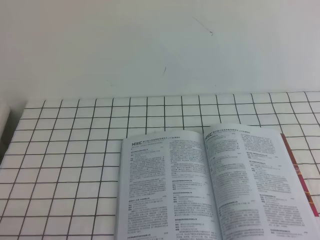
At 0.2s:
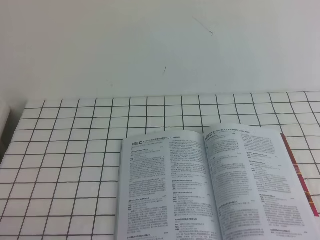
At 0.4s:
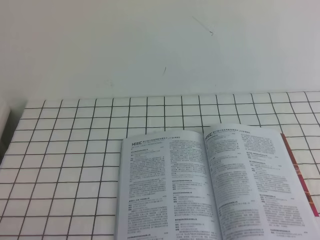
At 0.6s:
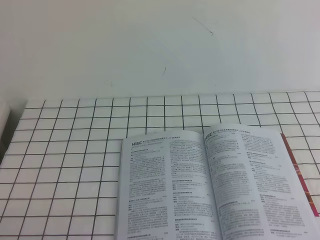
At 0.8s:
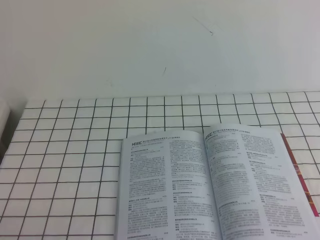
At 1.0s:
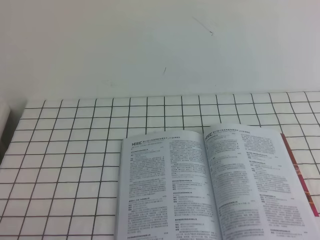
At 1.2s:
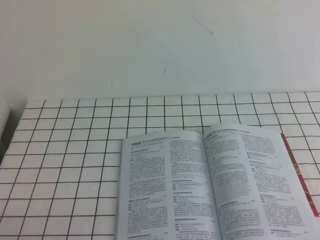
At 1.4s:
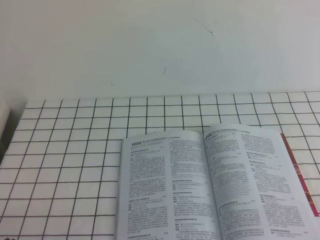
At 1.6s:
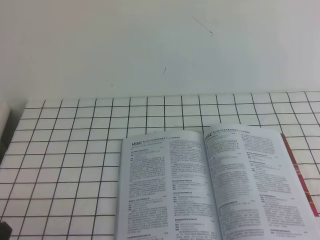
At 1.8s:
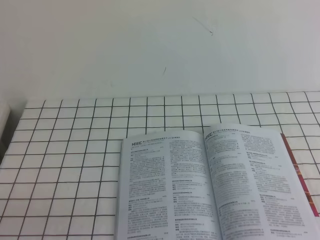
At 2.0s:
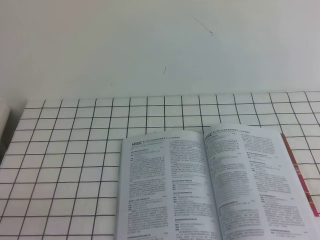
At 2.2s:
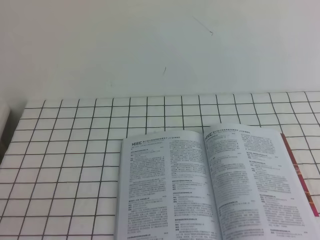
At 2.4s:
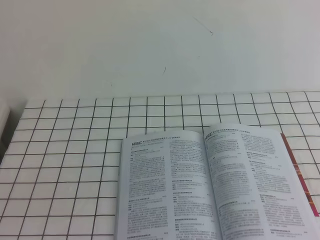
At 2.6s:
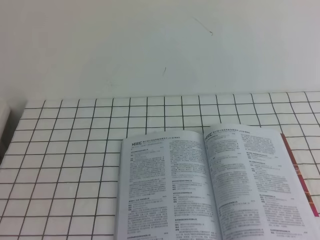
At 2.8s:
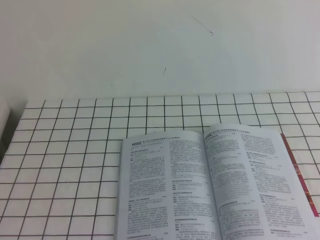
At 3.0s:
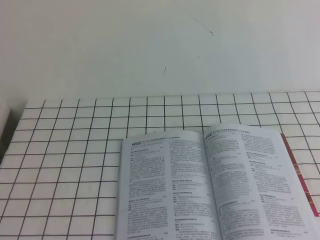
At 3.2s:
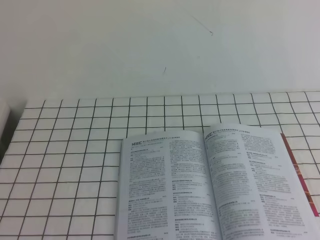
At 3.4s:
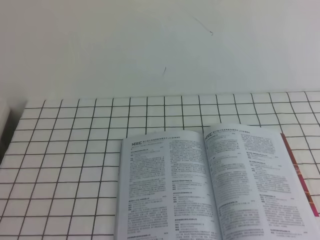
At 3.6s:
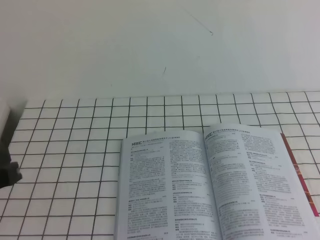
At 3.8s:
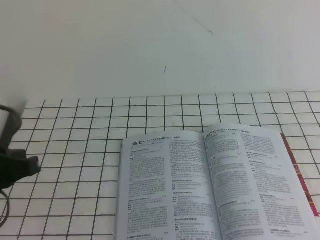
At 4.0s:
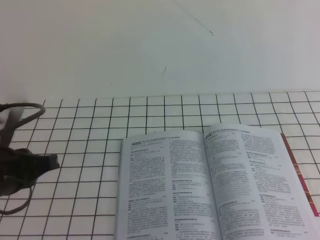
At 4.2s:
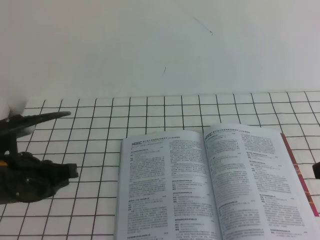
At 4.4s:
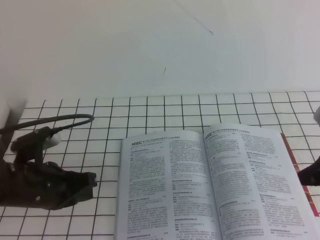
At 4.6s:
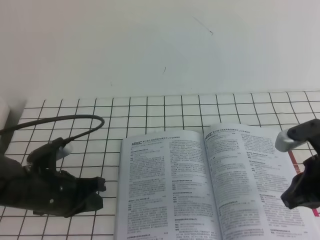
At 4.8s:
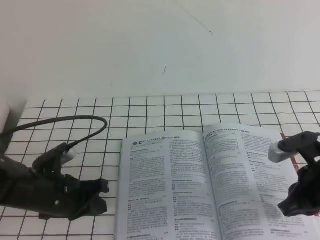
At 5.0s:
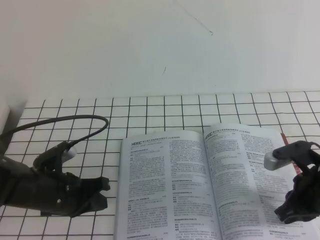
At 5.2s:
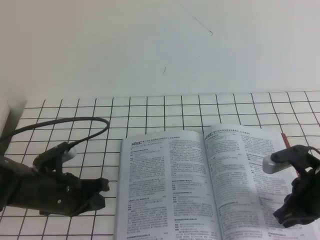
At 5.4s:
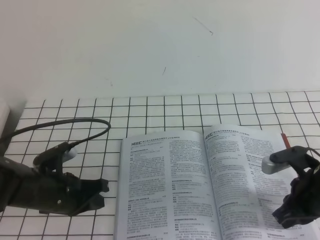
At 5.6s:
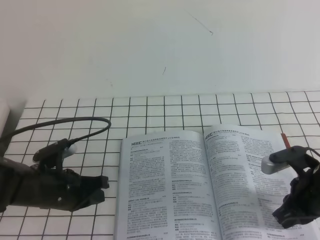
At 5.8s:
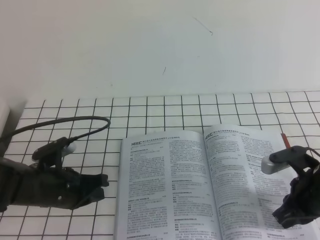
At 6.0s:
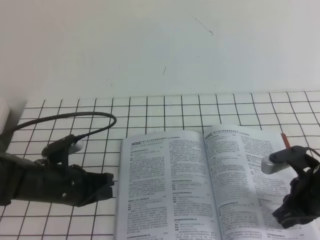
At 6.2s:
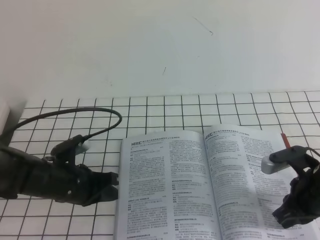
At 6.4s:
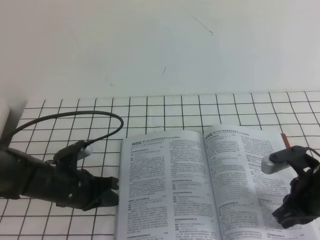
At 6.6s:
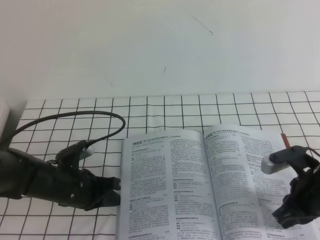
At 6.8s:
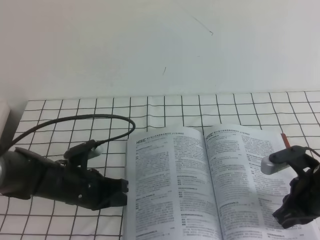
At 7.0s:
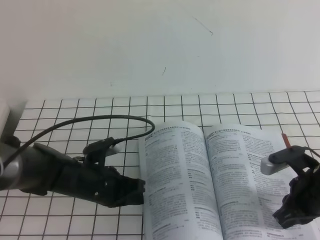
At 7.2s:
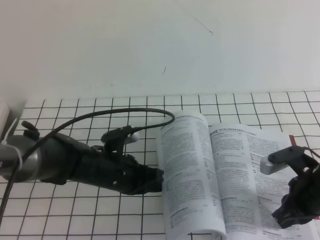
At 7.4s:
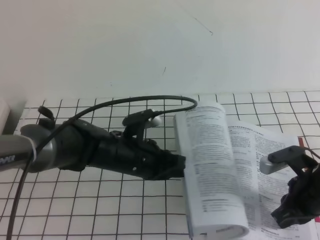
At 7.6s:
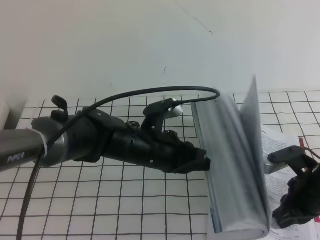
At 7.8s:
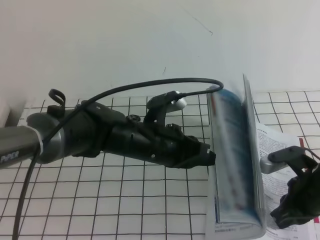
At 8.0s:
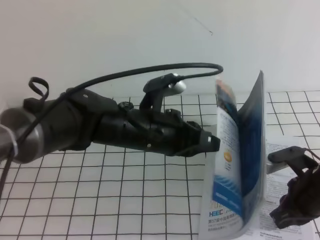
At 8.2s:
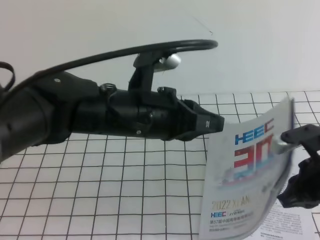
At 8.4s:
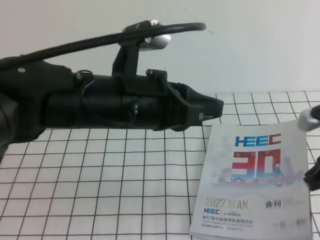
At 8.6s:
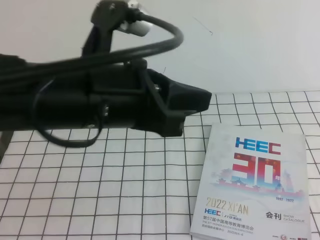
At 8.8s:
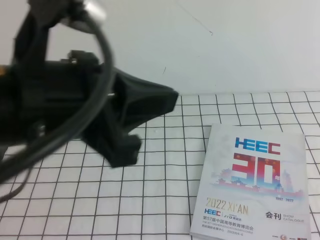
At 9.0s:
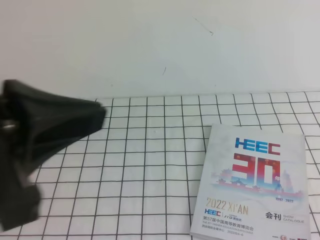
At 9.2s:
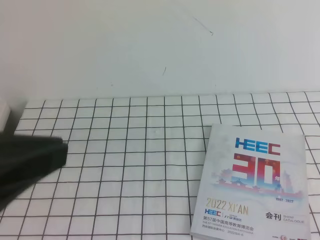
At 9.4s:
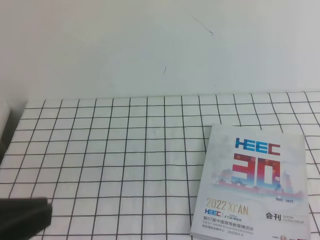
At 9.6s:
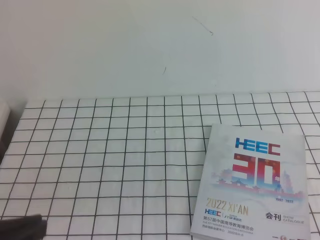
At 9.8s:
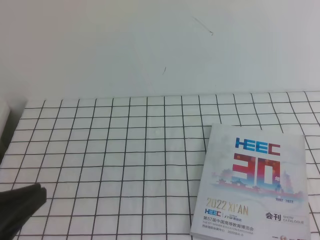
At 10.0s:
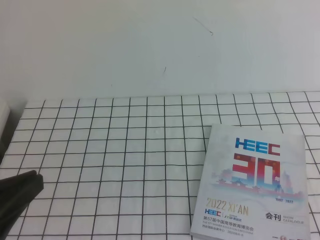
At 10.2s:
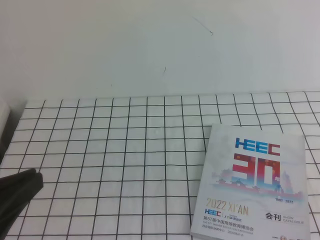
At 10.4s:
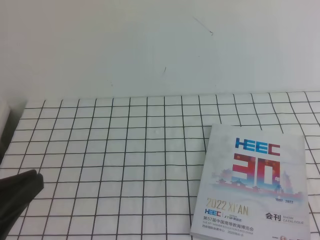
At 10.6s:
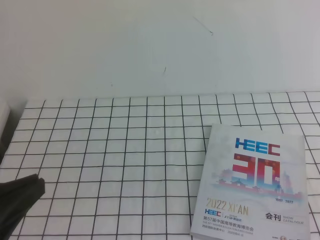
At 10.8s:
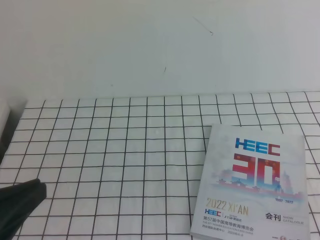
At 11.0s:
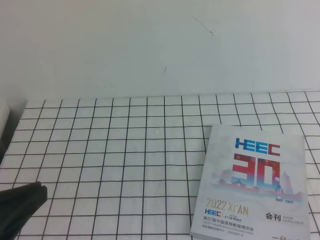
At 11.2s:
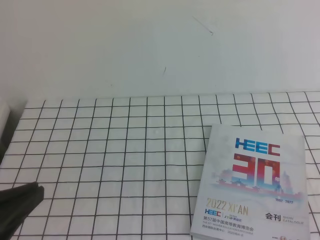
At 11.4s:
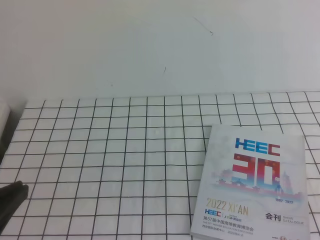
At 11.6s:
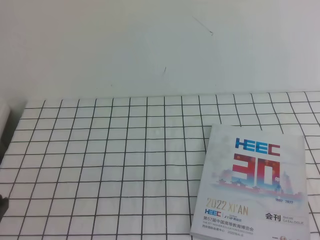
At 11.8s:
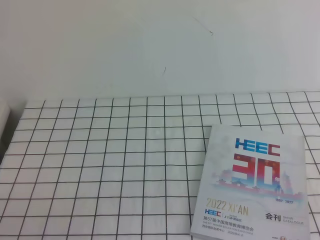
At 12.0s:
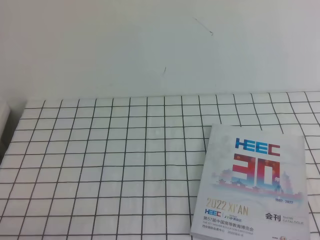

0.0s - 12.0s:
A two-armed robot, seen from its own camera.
Task of the whole recording: on the white tablecloth, hold the book with one hand and close it with the other.
3.0s - 4.4s: The left gripper shifts roughly 25 cm forward and downward, while the right gripper shifts some 30 cm downward and forward.
4.4s - 6.0s: The right gripper goes about 10 cm downward. The left gripper heads downward, covering about 5 cm.
6.0s - 7.6s: The left gripper goes some 15 cm to the right.
7.6s - 9.0s: The left gripper moves upward, backward and to the left, about 35 cm. The right gripper heads upward and backward, covering some 35 cm.
9.0s - 10.4s: The right gripper heads downward, covering roughly 15 cm. The left gripper heads downward and to the left, covering approximately 10 cm.
10.4s - 12.0s: The left gripper is displaced downward by some 15 cm.

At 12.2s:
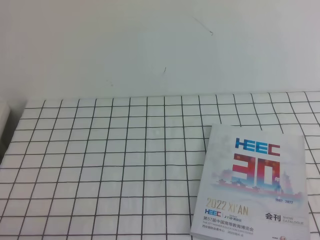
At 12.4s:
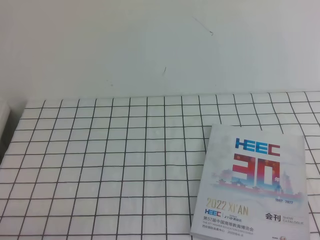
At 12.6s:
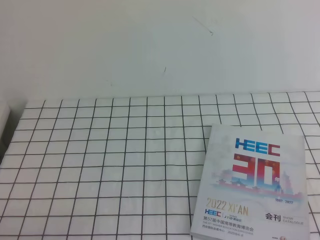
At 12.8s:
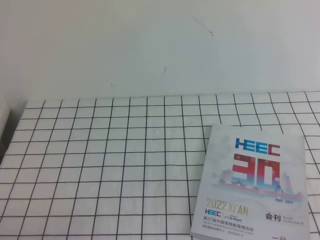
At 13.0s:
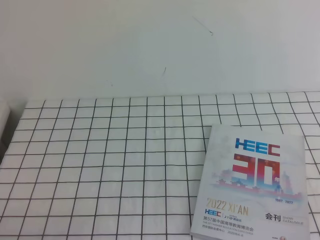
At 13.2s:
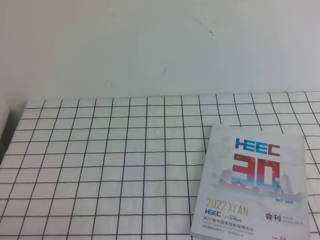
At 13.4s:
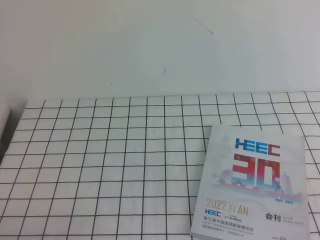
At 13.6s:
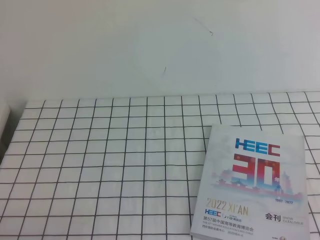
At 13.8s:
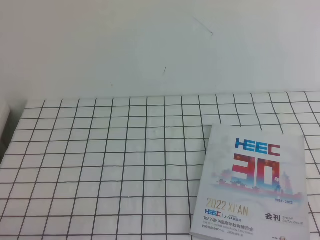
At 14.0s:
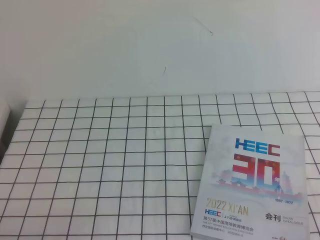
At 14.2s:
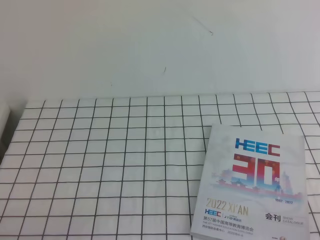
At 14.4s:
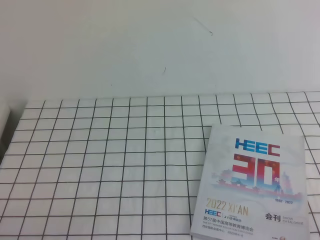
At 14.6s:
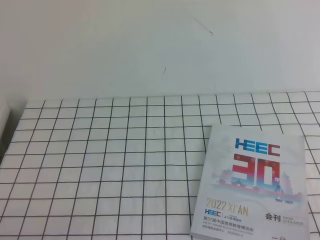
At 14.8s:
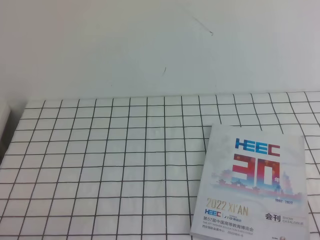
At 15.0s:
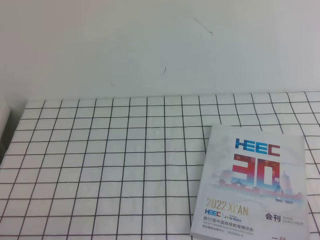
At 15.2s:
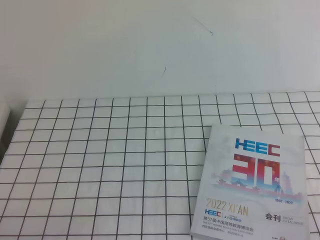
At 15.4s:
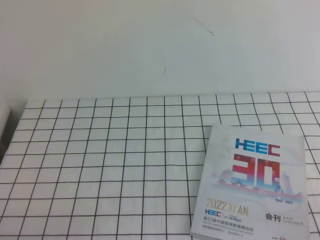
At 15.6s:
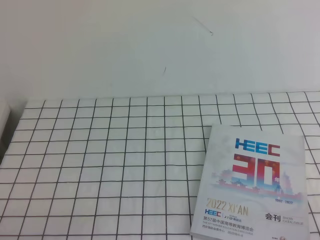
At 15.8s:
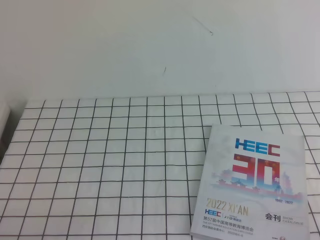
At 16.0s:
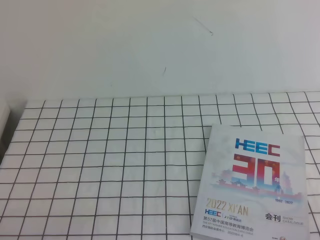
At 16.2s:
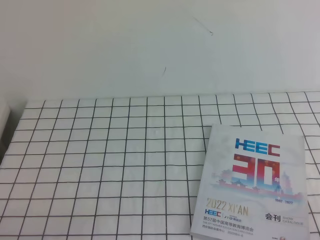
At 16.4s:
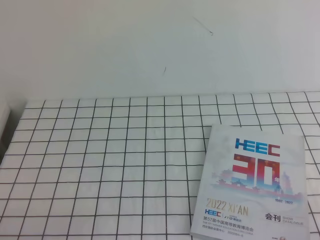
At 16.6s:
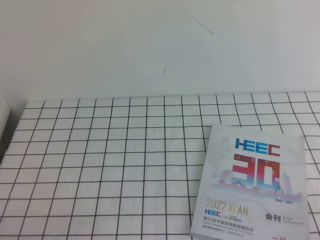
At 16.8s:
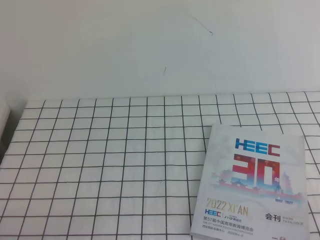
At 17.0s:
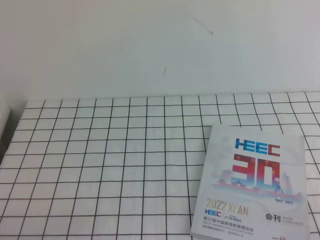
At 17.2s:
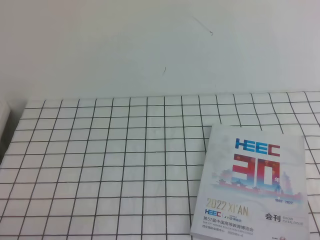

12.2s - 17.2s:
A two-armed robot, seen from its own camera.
Task of the whole recording: on the white tablecloth, hold the book with one hand and close it with the other.
15.6s - 17.2s: Both grippers stay about where they are.
